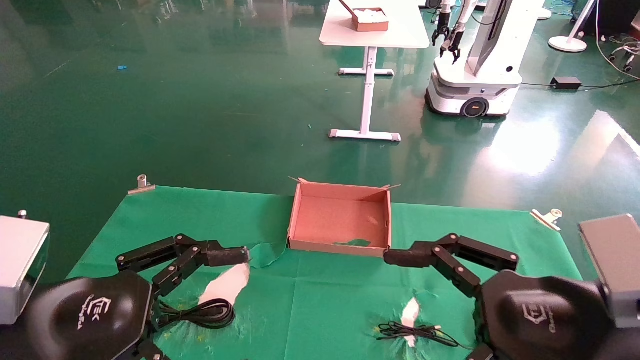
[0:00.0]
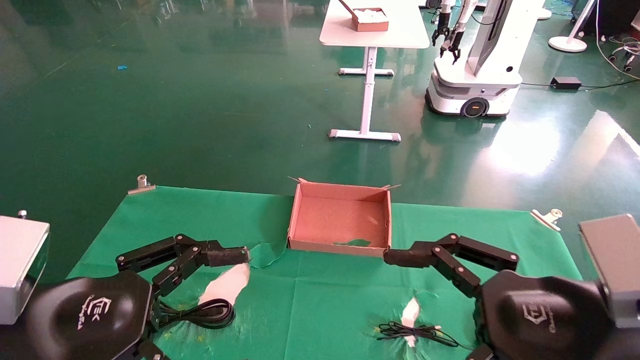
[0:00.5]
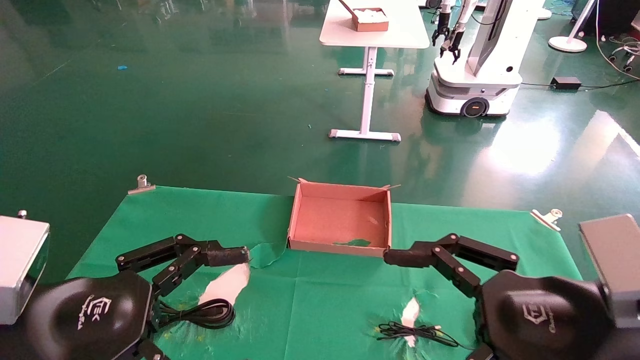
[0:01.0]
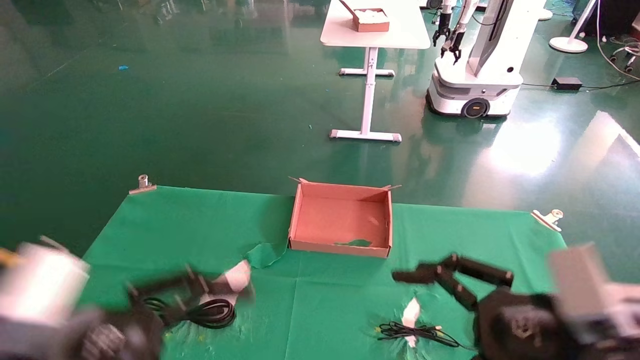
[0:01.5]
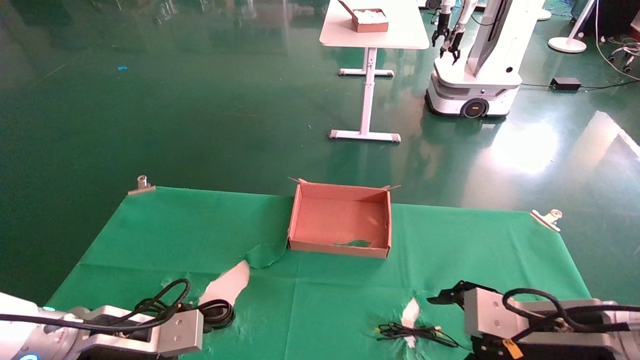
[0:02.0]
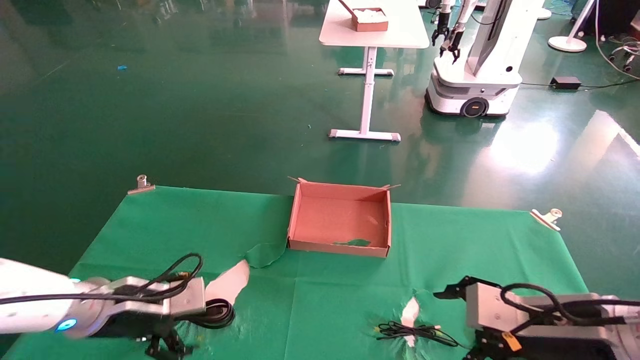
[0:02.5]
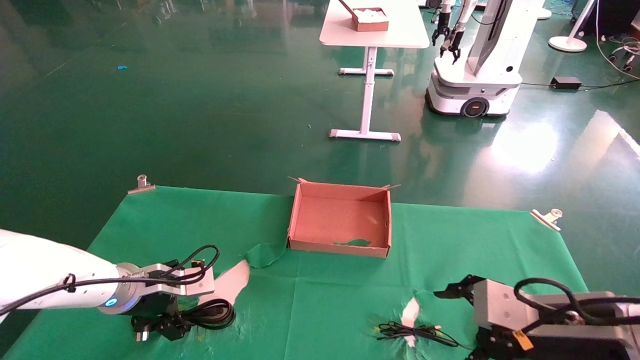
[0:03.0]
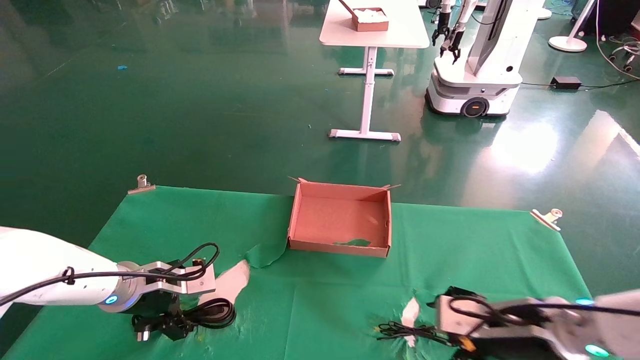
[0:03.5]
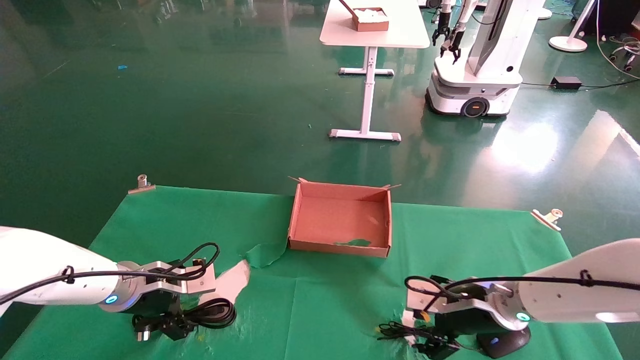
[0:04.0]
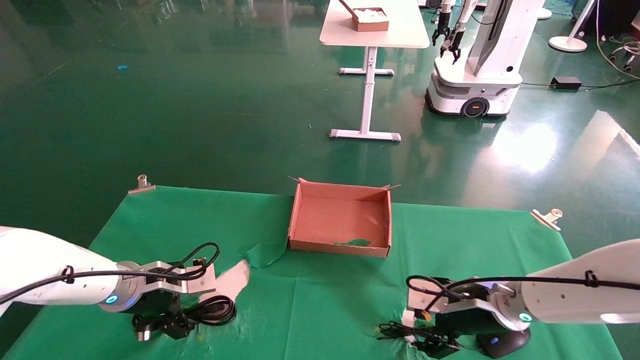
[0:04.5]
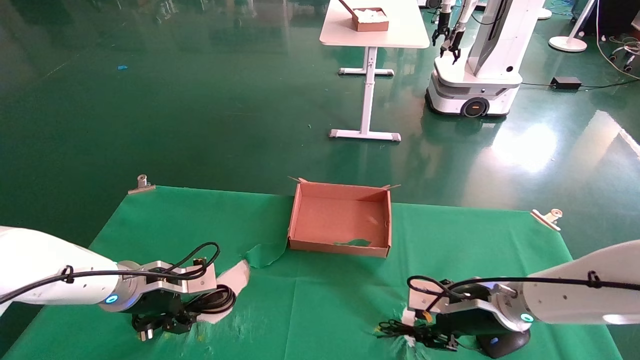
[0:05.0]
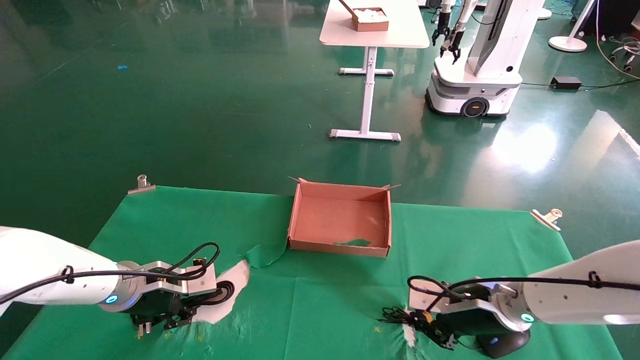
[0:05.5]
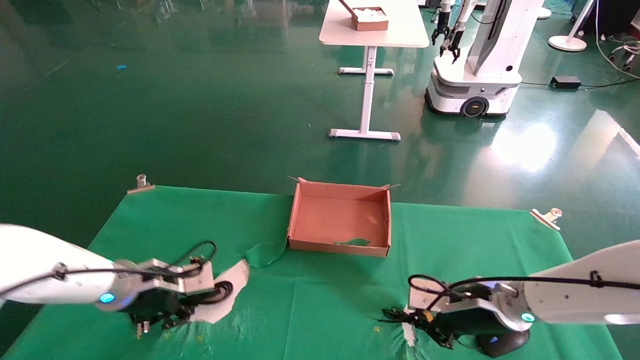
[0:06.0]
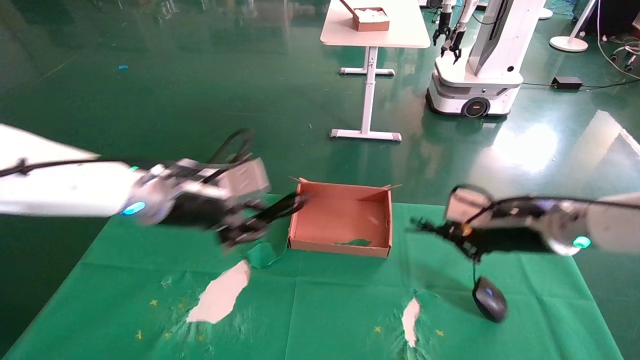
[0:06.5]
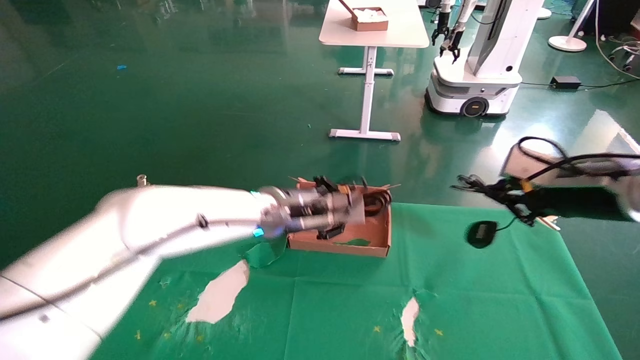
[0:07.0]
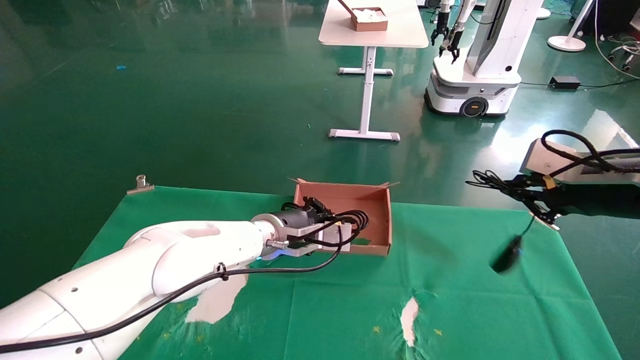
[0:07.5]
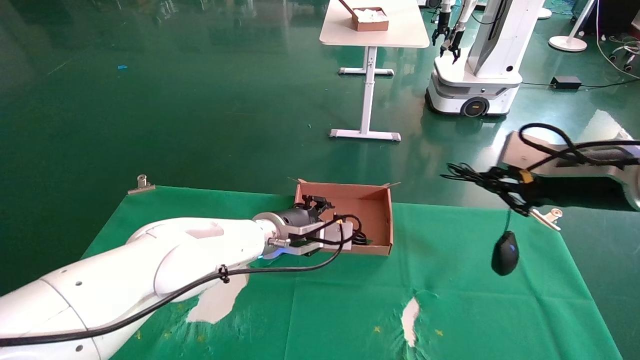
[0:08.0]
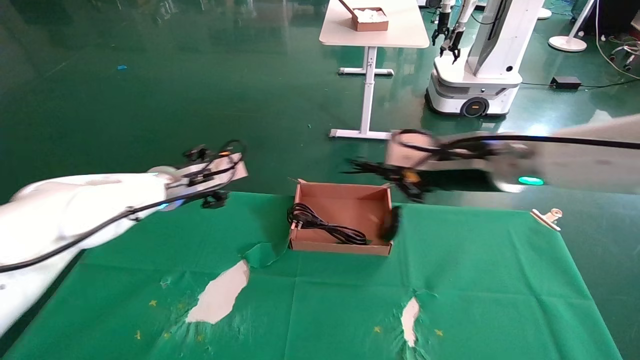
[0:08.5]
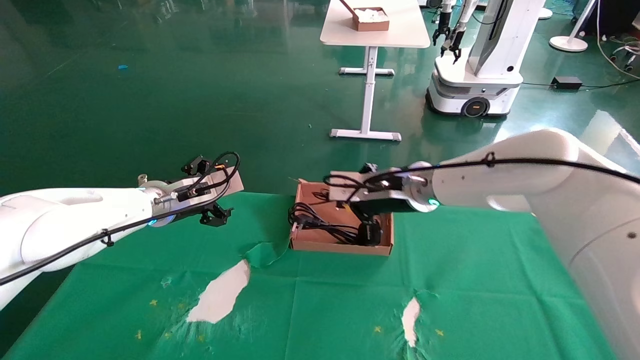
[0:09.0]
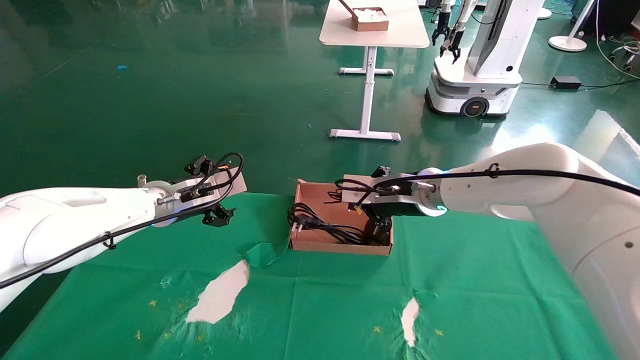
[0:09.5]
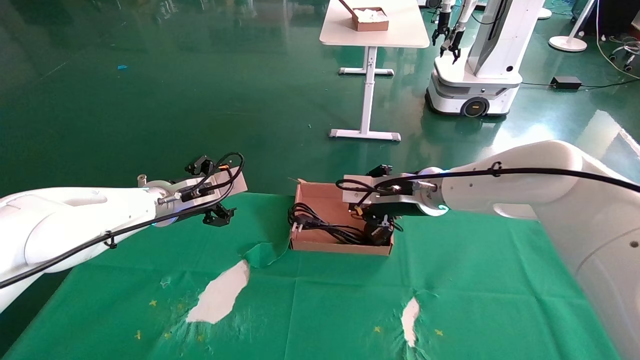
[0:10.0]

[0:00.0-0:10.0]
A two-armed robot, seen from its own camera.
Step, 0:02.0 to 0:06.0: Grab and lift both the mouse and power cord from the accessory packaging area at the same time.
0:00.0 to 0:02.0: The grippers both shift forward and downward by roughly 10 cm.
0:02.0 to 0:04.0: The two grippers go some 15 cm forward.
0:04.0 to 0:06.0: The left gripper closes its fingers. The right gripper closes its fingers.
0:06.0 to 0:08.0: The right gripper travels upward by about 20 cm. The left gripper heads to the right, covering roughly 20 cm.
0:08.0 to 0:10.0: The left gripper is displaced to the left by about 15 cm, and opens; the right gripper is displaced to the left and forward by some 20 cm.

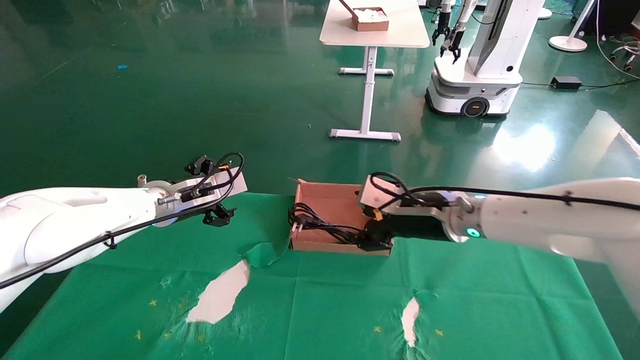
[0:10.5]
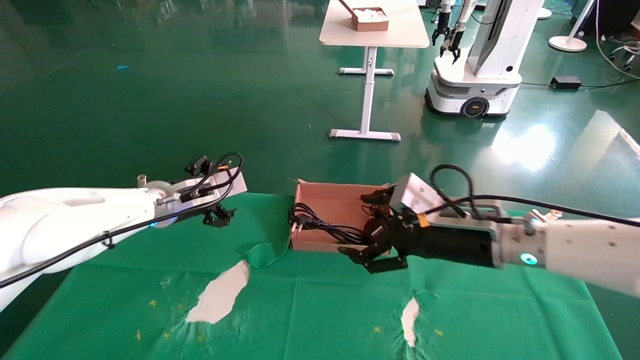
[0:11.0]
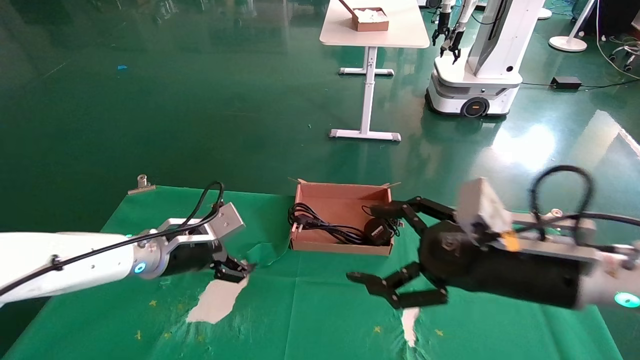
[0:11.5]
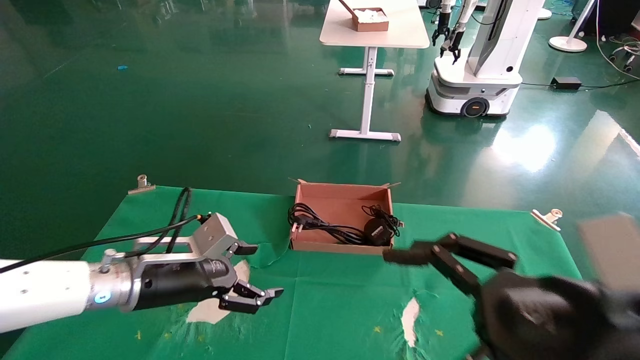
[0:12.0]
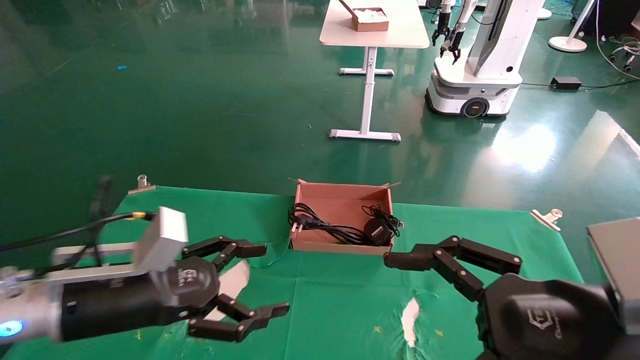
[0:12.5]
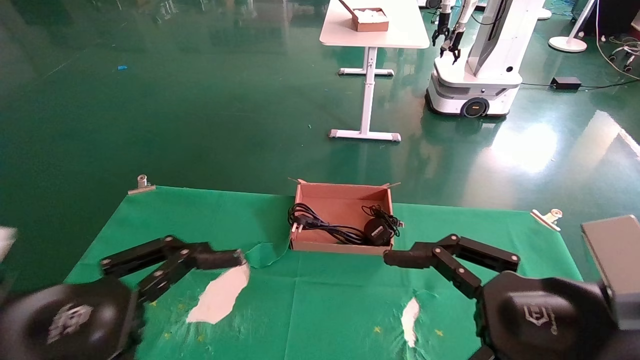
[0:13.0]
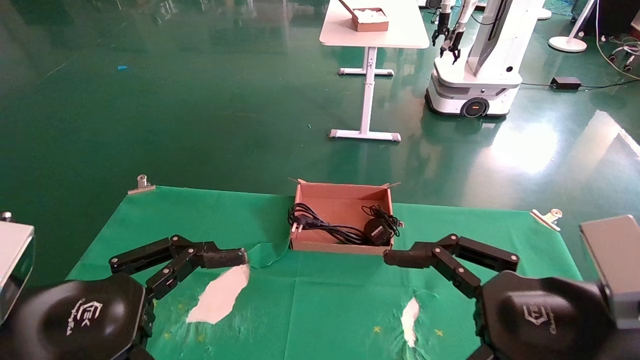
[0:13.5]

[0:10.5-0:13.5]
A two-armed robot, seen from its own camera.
0:10.5 to 0:12.0: The right gripper heads backward, covering roughly 25 cm, and opens its fingers. The left gripper moves backward and downward, roughly 15 cm.
0:12.0 to 0:13.5: The left gripper heads backward, covering approximately 20 cm.
